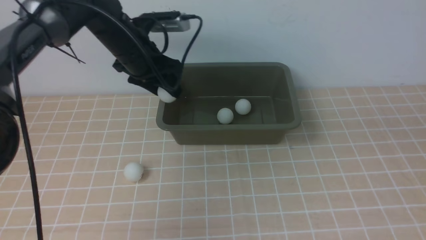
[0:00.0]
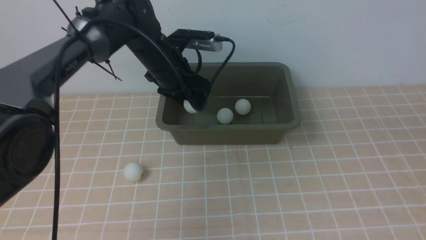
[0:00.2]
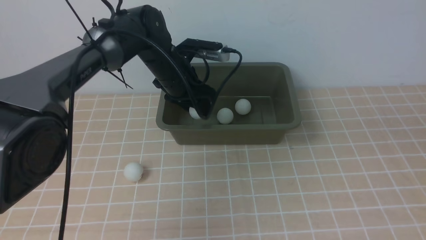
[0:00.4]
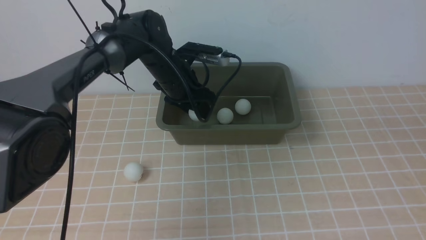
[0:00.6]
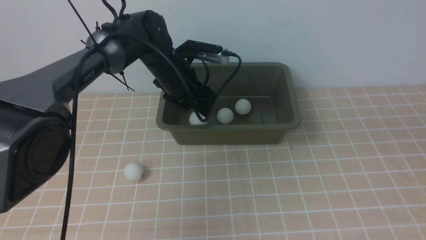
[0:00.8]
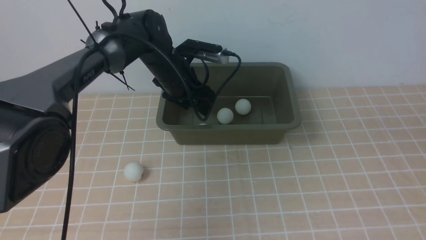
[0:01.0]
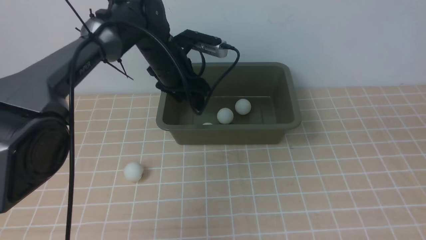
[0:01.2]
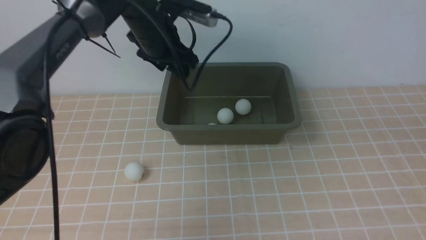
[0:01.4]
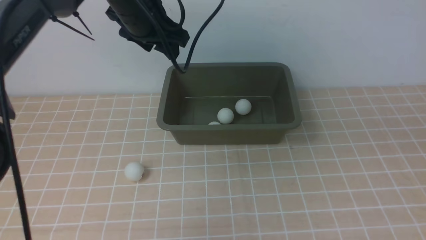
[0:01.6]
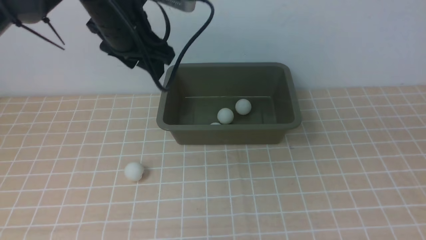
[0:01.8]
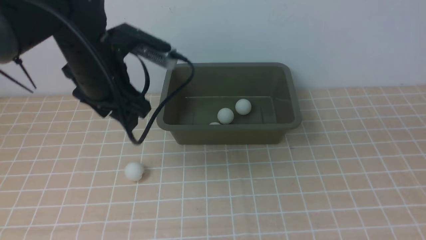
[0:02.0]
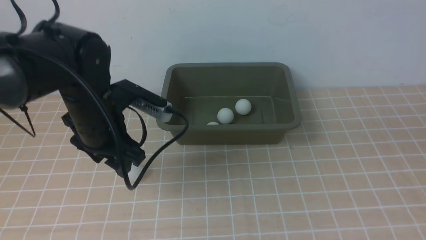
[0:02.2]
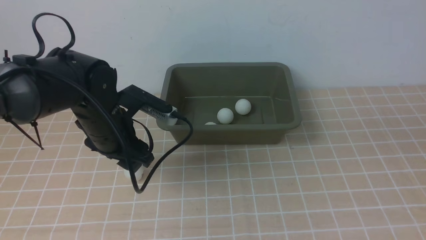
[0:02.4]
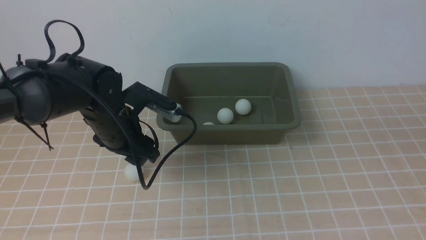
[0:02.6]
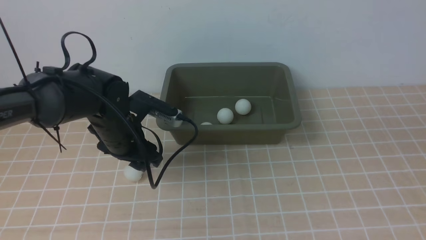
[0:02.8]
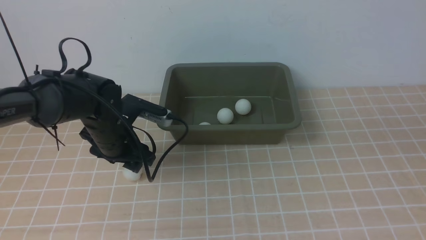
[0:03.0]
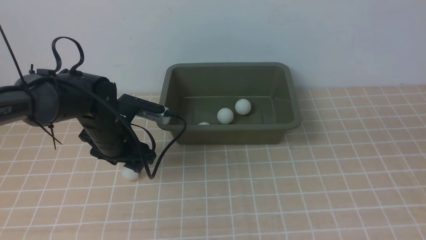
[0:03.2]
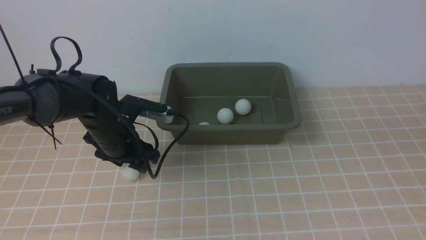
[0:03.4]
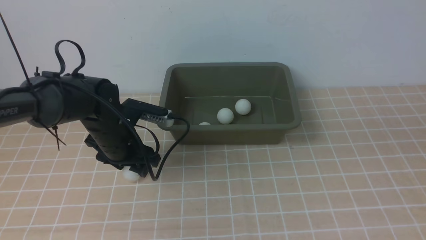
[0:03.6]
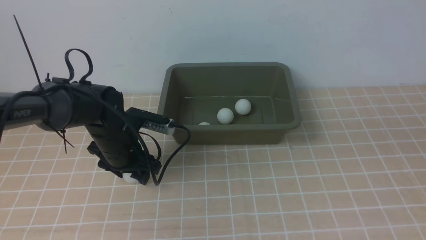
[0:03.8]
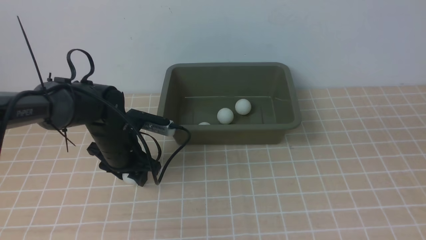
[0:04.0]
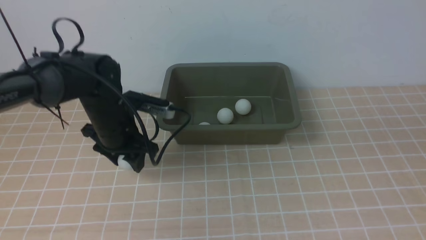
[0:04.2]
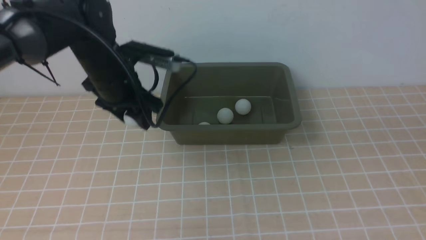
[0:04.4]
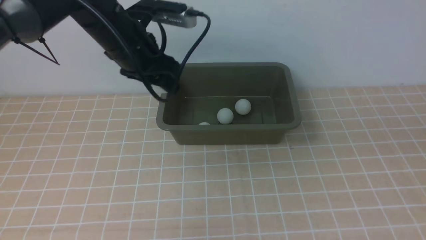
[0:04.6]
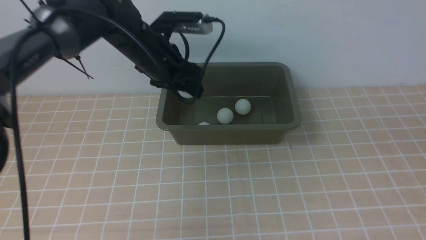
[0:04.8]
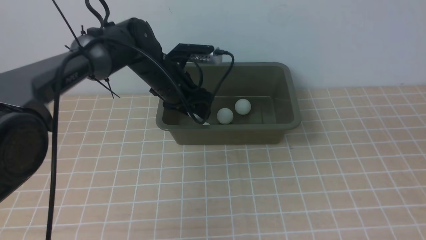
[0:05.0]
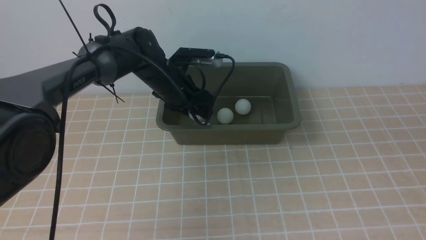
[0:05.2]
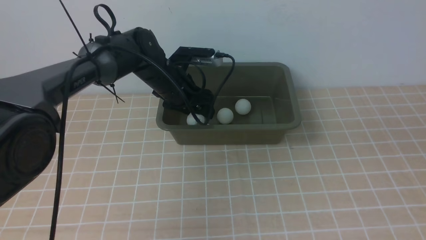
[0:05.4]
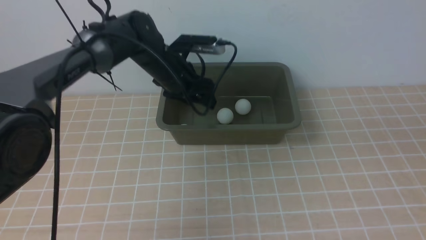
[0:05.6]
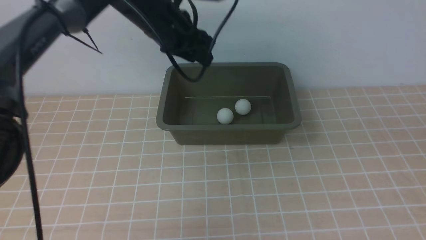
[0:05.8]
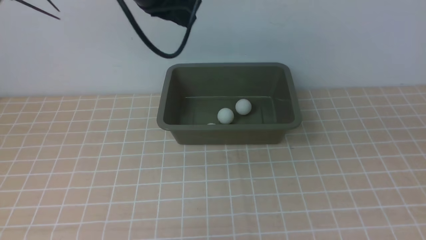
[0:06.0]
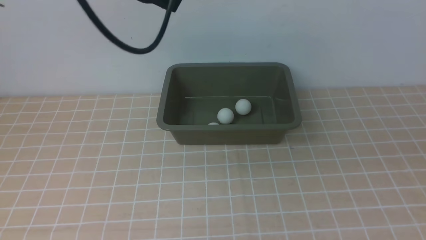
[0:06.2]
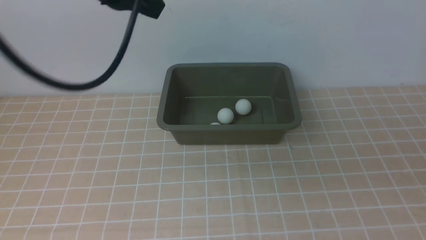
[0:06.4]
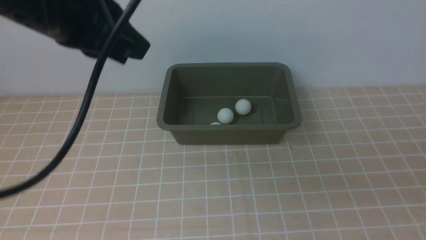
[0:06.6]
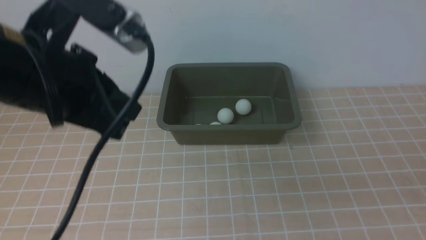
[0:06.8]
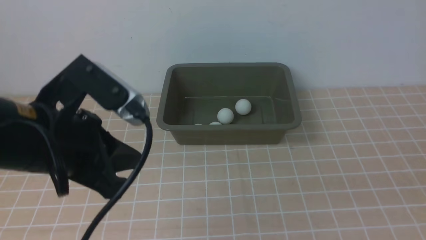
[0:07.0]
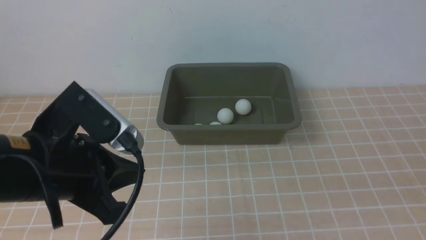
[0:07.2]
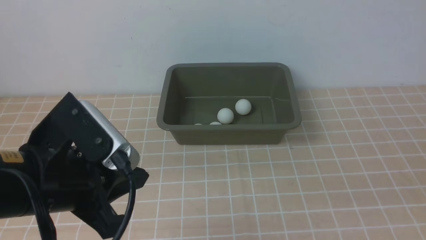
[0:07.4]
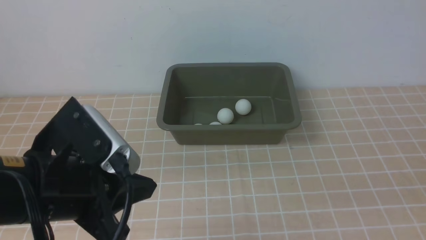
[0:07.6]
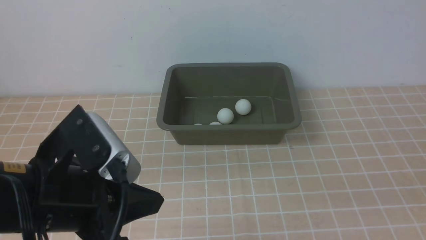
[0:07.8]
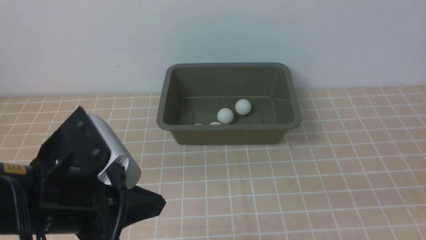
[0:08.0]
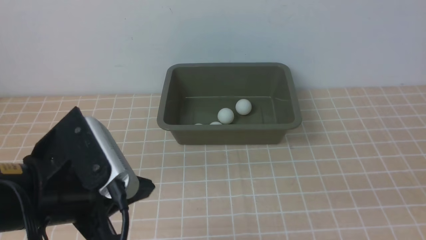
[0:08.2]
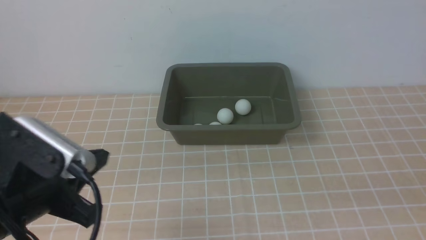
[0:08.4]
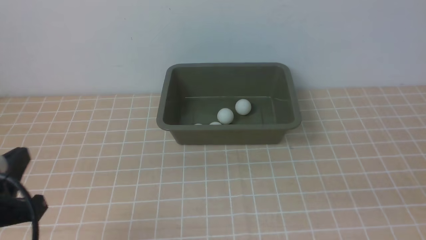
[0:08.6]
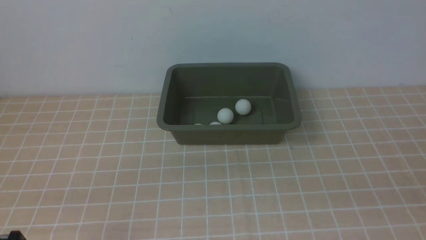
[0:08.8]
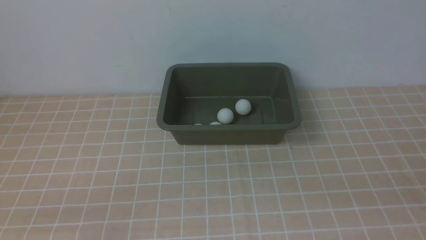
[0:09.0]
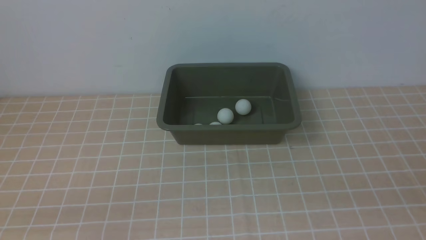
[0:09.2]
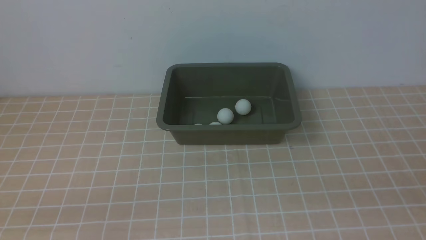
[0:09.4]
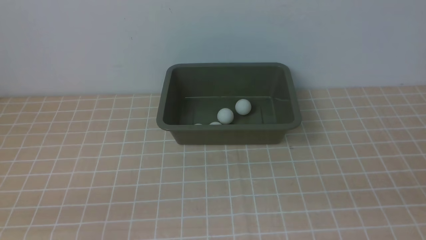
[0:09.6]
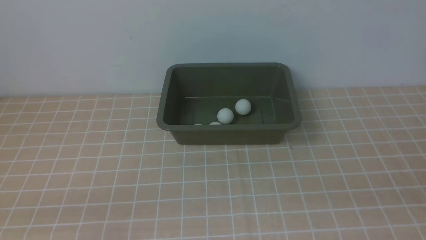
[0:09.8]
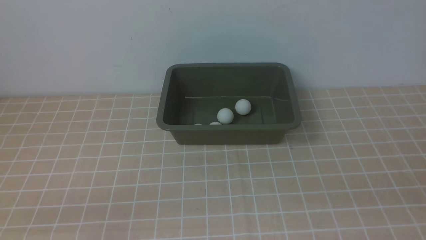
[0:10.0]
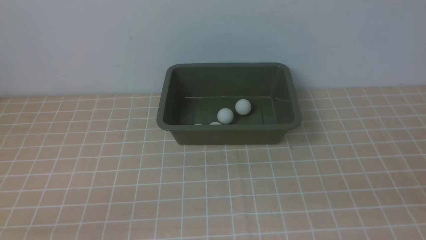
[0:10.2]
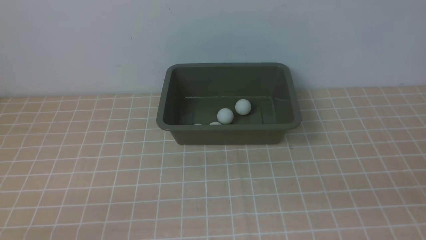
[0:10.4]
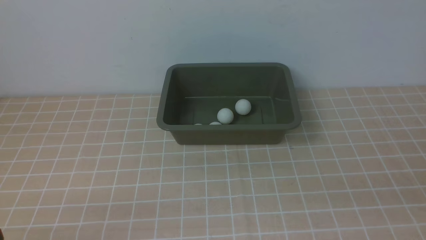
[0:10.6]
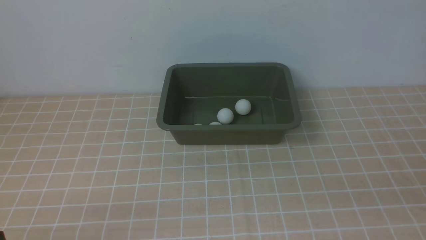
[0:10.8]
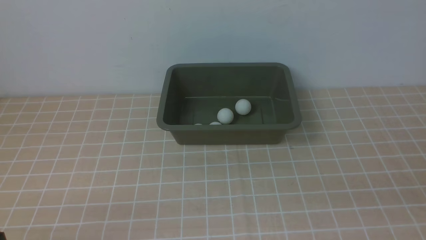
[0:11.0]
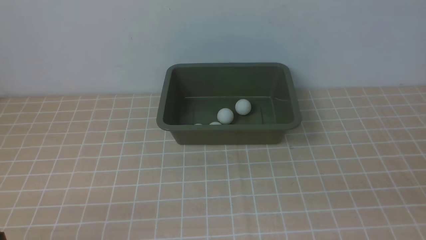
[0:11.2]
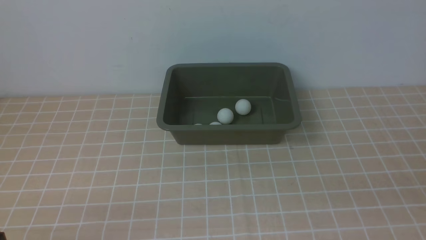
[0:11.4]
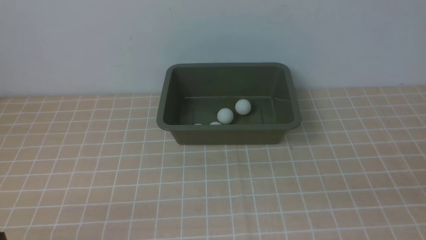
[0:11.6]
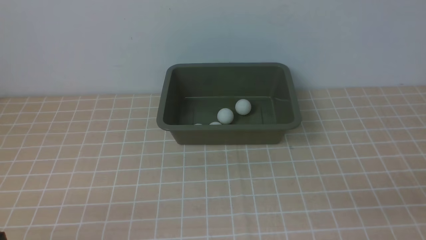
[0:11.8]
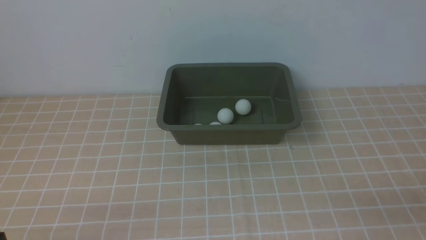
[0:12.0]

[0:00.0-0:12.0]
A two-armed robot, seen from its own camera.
Step, 0:00.0 to 0:01.2: use the left arm to put the table tennis ball into the box.
Step, 0:01.4 to 0:04.4: use the left arm to clamp the table tennis ball closest to it.
Step, 0:04.6 to 0:05.8: use the left arm to put the table tennis ball into the box.
0:00.0 to 0:01.6: The left gripper shifts approximately 5 cm upward.
0:01.6 to 0:03.0: The left gripper heads downward and backward, covering roughly 15 cm.
0:03.0 to 0:04.4: The left gripper moves upward, approximately 5 cm.
0:04.4 to 0:06.0: The left gripper moves up and down over about 20 cm, changing direction 2 times, and closes its fingers.
0:06.0 to 0:07.6: The left gripper goes about 25 cm backward, while the right gripper moves downward, approximately 10 cm.
0:07.6 to 0:09.0: The left gripper travels to the left, backward and downward by some 15 cm.

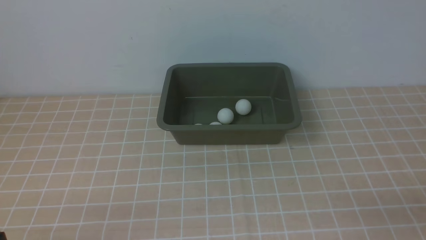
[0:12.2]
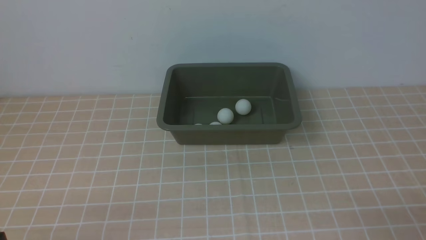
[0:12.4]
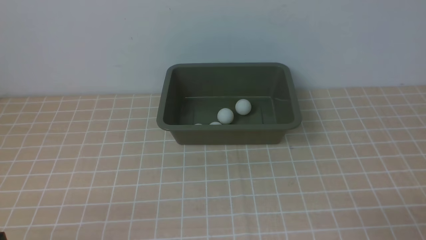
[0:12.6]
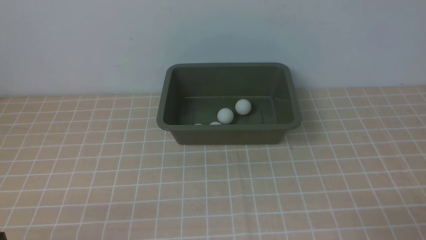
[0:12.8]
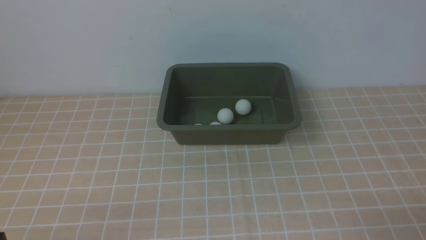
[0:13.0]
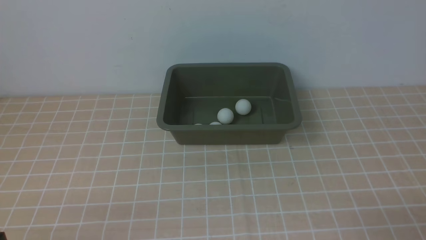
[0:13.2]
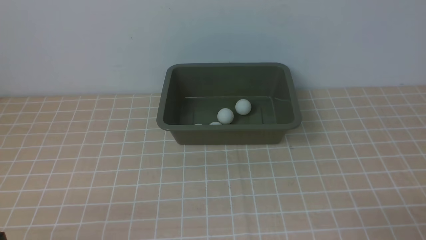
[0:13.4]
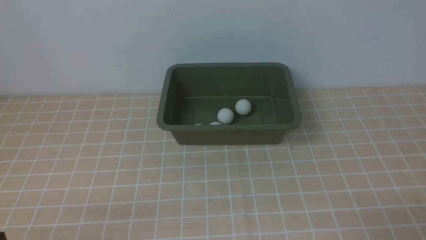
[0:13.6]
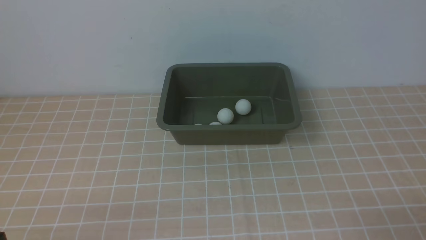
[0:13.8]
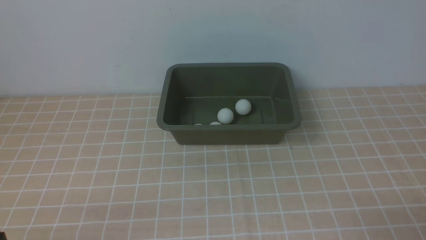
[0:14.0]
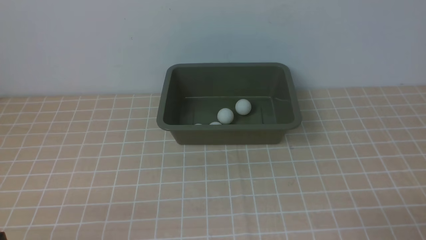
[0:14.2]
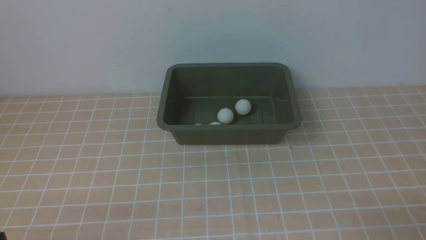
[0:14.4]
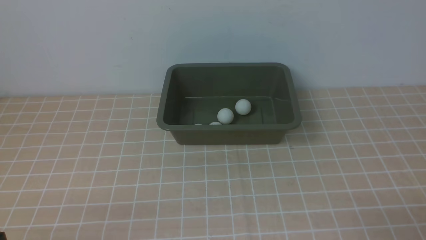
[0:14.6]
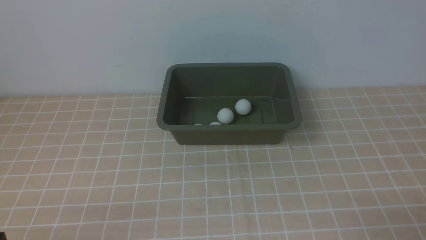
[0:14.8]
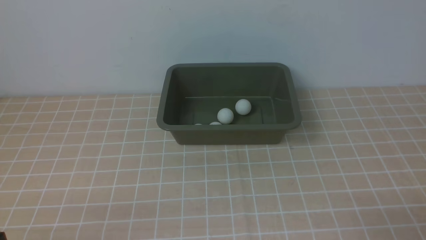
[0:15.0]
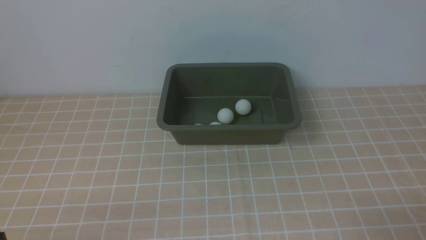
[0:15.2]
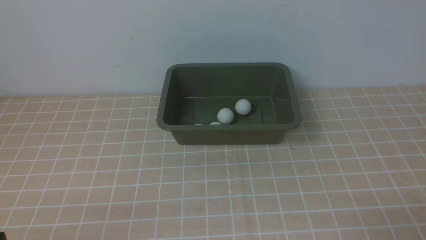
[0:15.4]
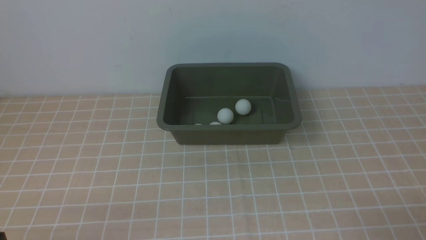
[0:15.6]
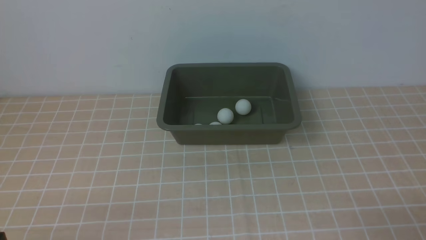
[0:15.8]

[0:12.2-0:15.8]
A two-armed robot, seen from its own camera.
0:14.0 to 0:15.8: Both grippers stay about where they are.
